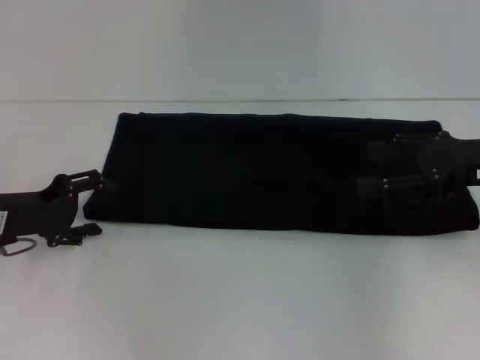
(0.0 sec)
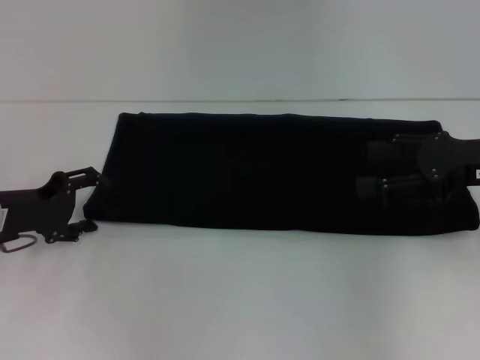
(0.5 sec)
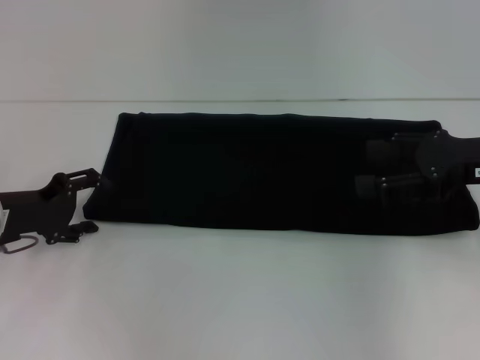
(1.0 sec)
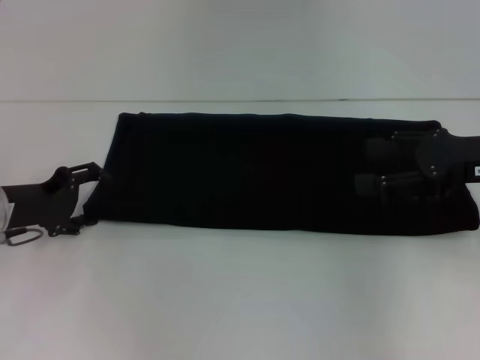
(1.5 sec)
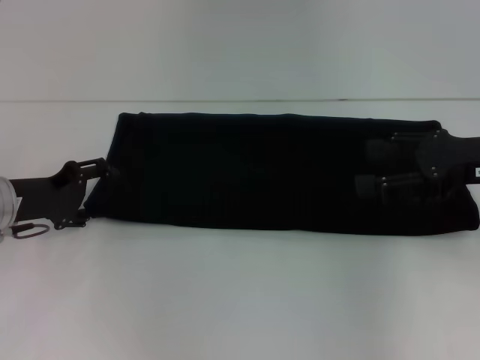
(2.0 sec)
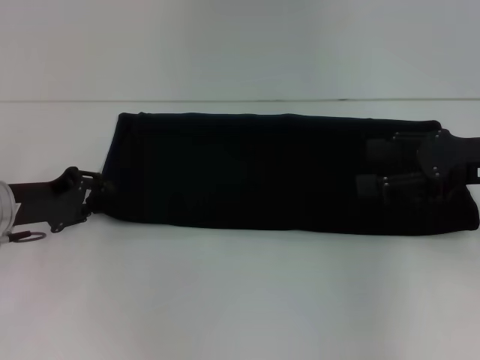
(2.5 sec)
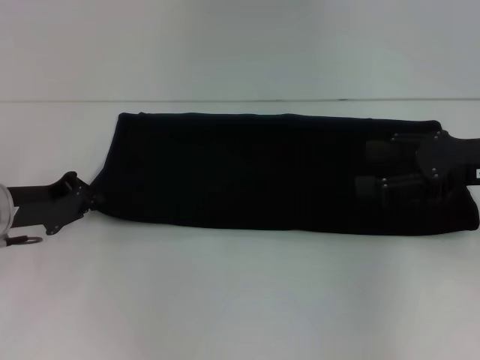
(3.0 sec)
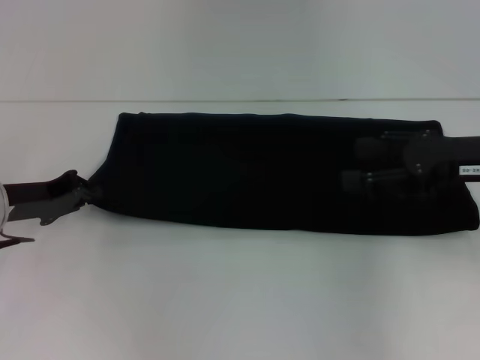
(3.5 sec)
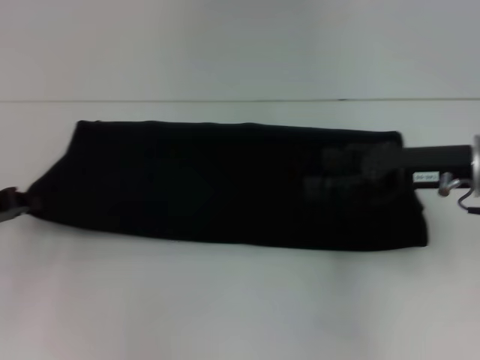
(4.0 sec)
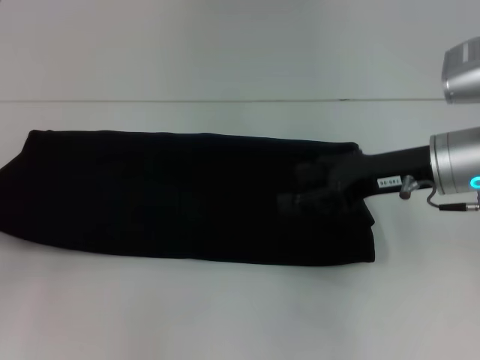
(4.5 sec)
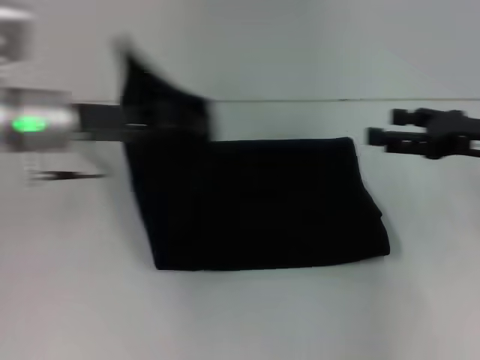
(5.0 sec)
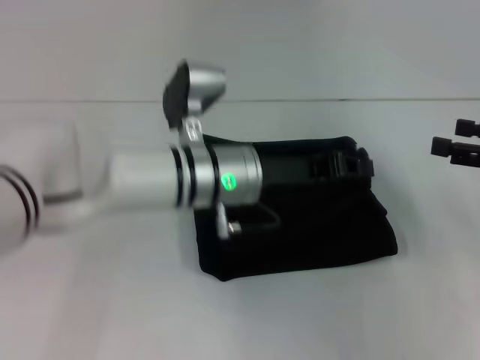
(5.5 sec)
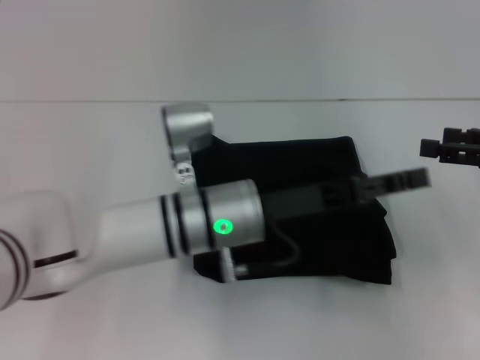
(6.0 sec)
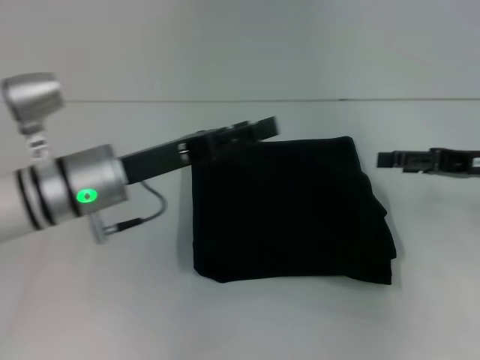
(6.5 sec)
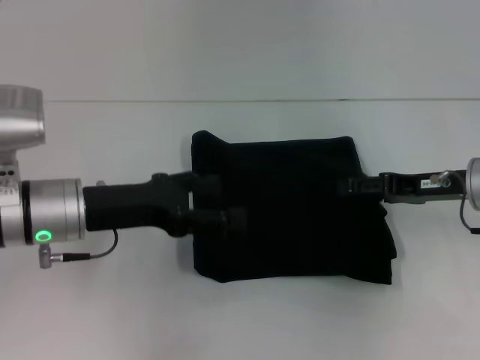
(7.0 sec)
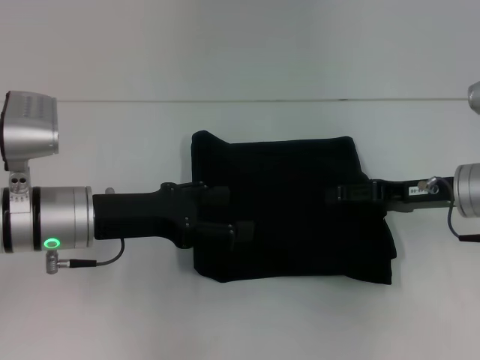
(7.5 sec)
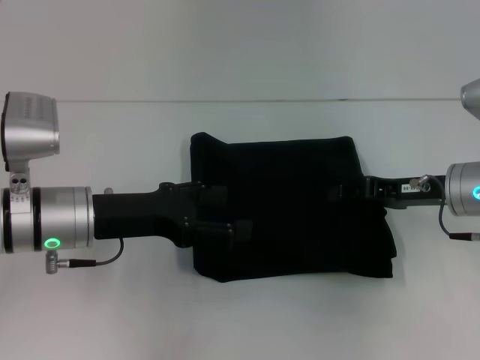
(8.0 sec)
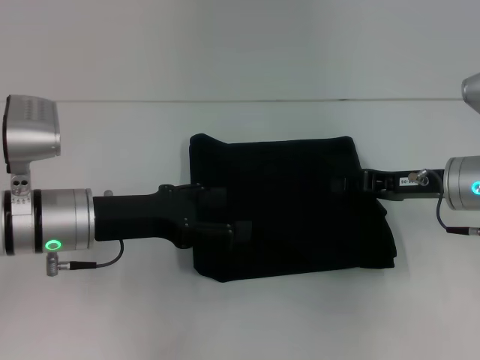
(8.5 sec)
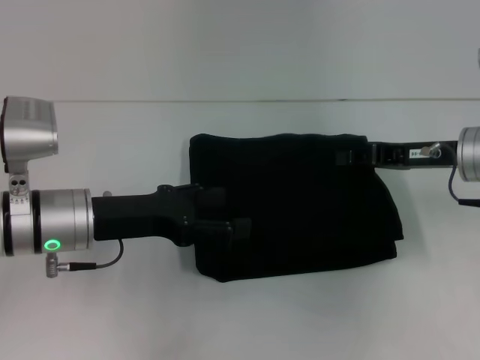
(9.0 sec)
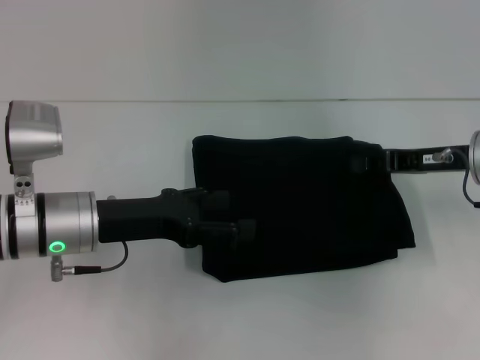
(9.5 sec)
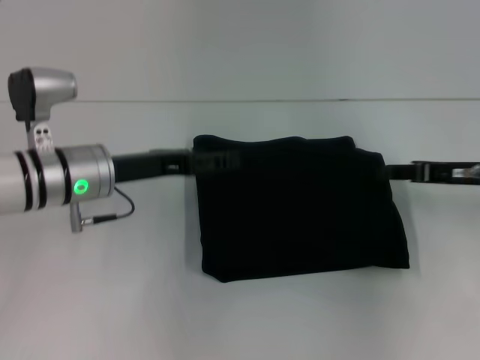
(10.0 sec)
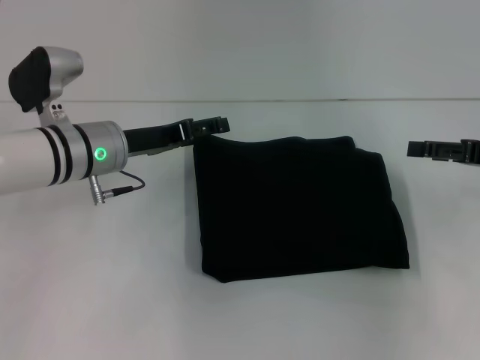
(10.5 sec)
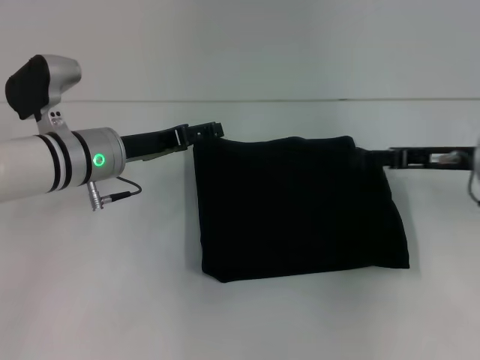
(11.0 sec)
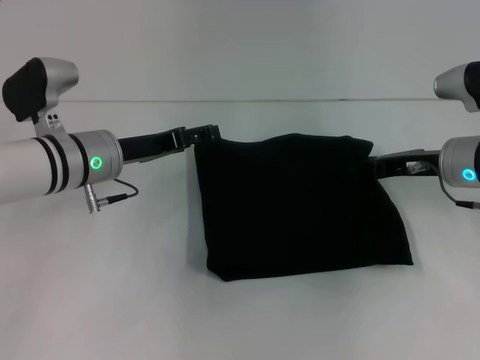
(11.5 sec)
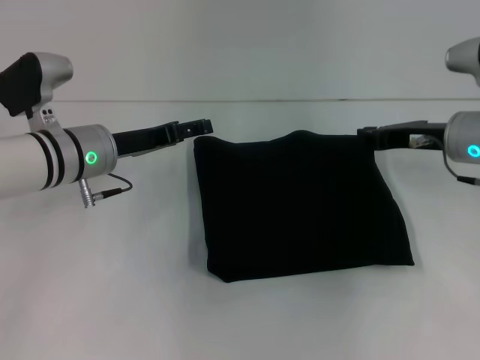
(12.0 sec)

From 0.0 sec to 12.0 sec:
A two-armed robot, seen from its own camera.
Step, from 0.0 sec to 5.5 sec: Fold the clothes with your left hand.
From 0.0 sec to 2.0 sec: The grippers make only small movements.
From 2.0 sec to 4.0 sec: The left gripper shifts about 5 cm to the left, and closes its fingers.
From 4.0 sec to 6.0 sec: The left gripper shifts about 30 cm to the right, and opens. The right gripper travels to the right by roughly 10 cm.
From 6.0 sec to 8.0 sec: The right gripper heads to the left and downward, covering approximately 10 cm, while the left gripper heads to the left, covering about 15 cm, and opens up.
From 8.0 sec to 10.0 sec: The right gripper closes.
From 10.0 sec to 12.0 sec: The right gripper moves approximately 5 cm, and opens, then closes once more.

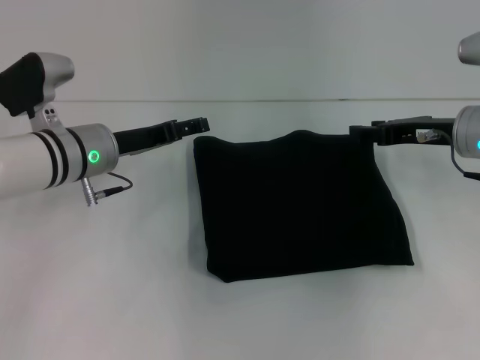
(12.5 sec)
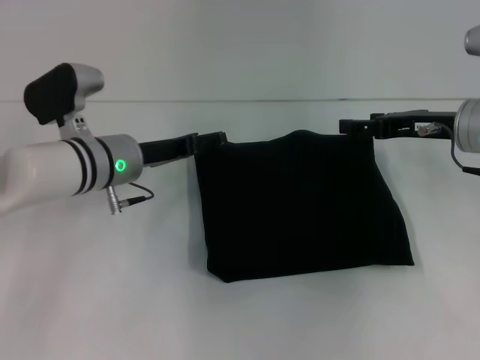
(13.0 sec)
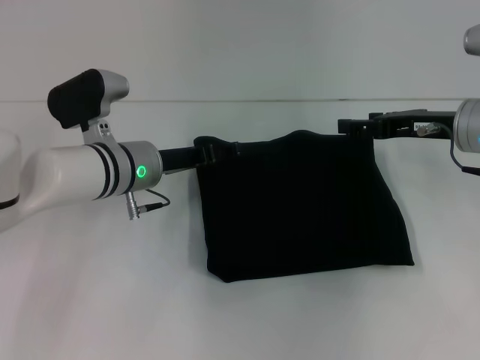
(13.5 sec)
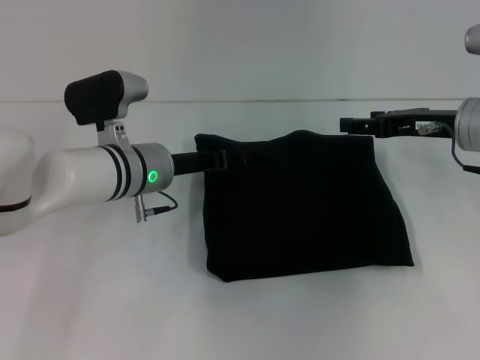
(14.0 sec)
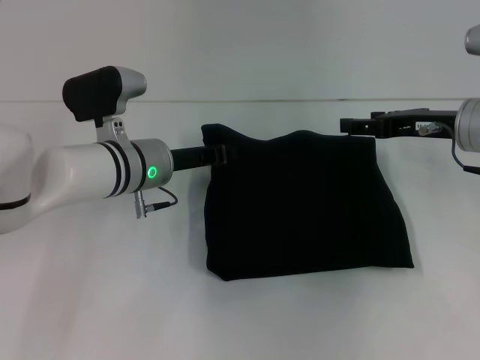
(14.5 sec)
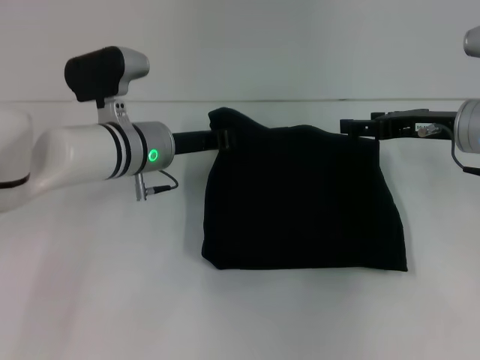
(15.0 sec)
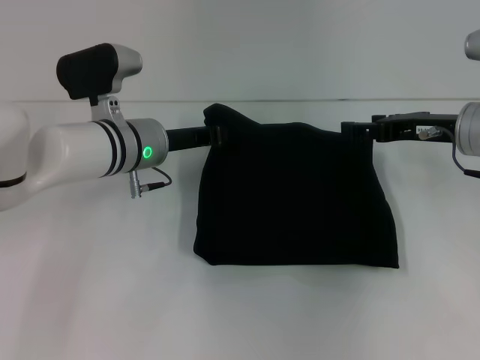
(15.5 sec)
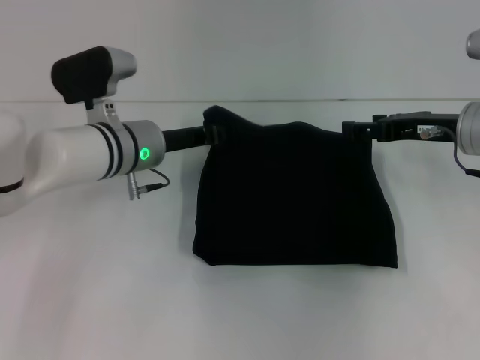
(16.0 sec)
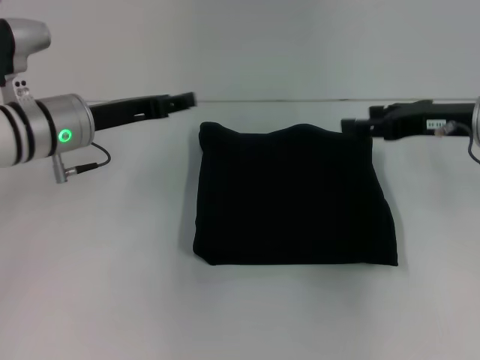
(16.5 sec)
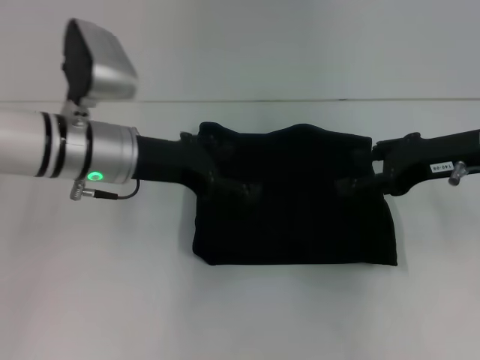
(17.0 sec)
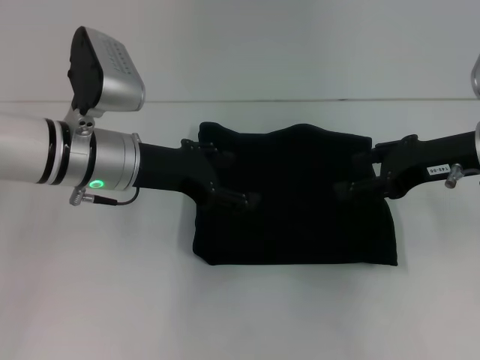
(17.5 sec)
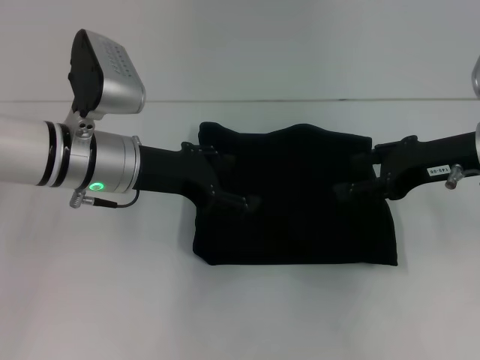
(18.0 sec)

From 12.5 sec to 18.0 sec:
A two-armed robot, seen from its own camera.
From 12.5 sec to 14.5 sec: The right gripper opens up; the left gripper moves to the right, about 5 cm, and closes up.
From 14.5 sec to 16.0 sec: The grippers move only a little.
From 16.0 sec to 18.0 sec: The right gripper shifts by roughly 5 cm, while the left gripper shifts by roughly 5 cm, and opens its fingers.
